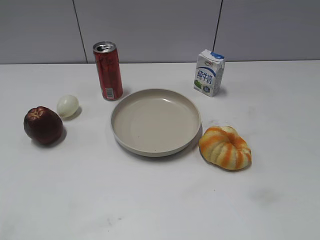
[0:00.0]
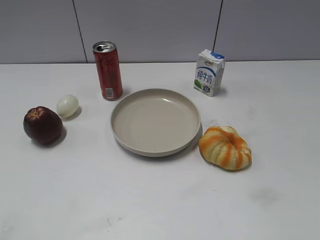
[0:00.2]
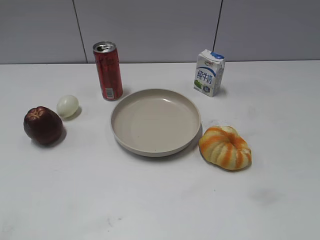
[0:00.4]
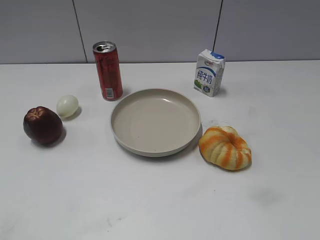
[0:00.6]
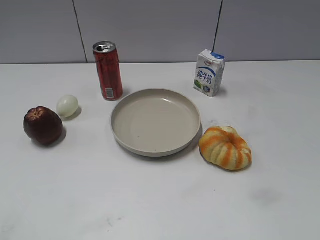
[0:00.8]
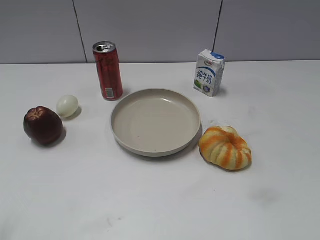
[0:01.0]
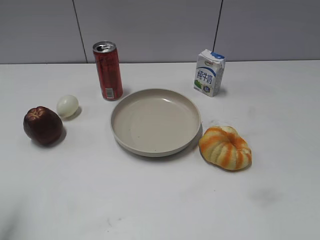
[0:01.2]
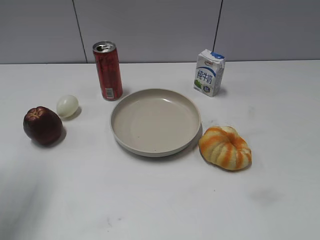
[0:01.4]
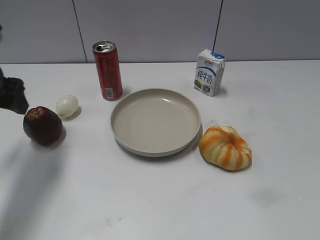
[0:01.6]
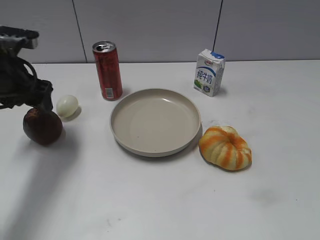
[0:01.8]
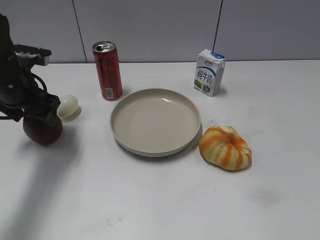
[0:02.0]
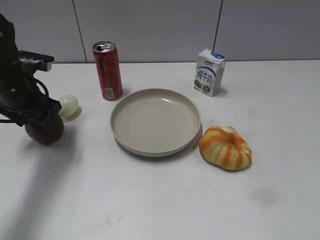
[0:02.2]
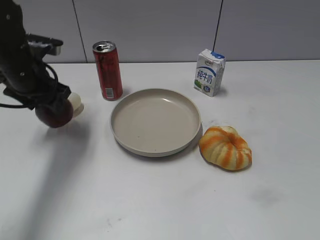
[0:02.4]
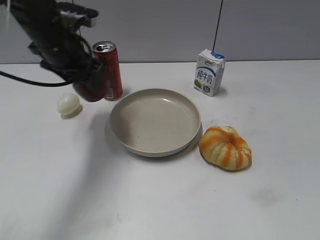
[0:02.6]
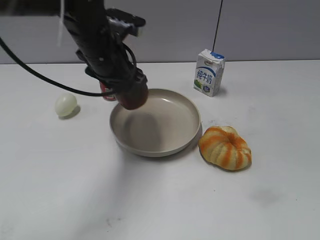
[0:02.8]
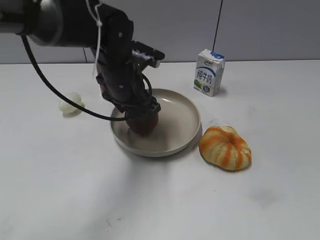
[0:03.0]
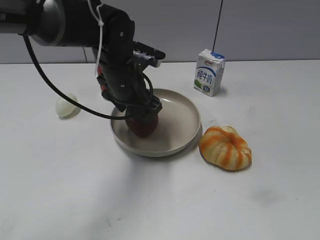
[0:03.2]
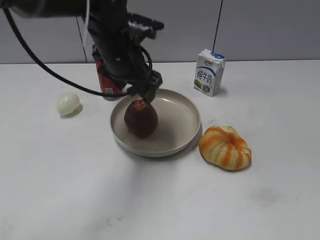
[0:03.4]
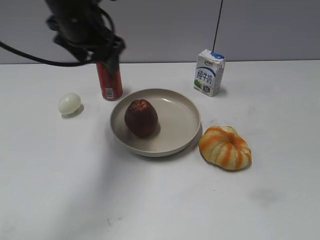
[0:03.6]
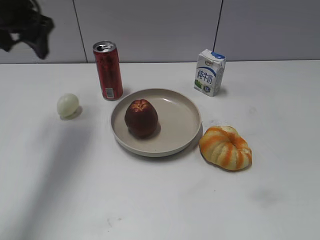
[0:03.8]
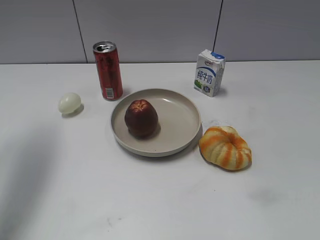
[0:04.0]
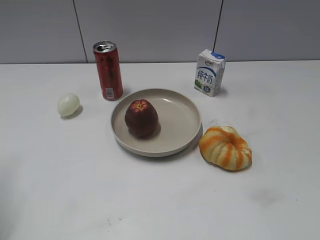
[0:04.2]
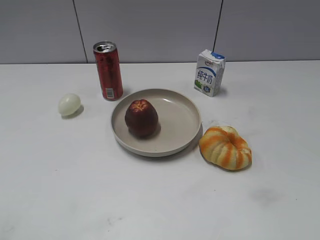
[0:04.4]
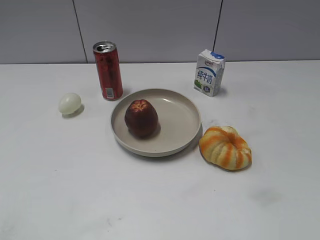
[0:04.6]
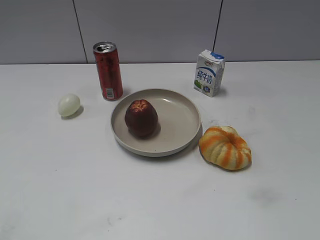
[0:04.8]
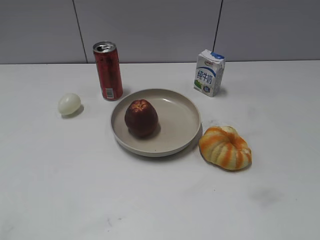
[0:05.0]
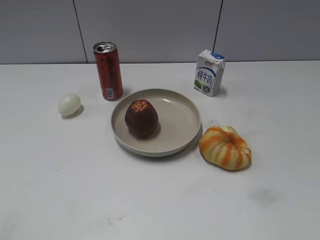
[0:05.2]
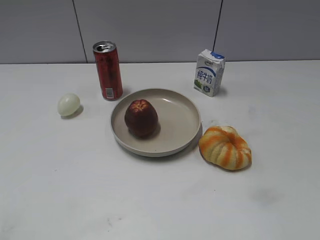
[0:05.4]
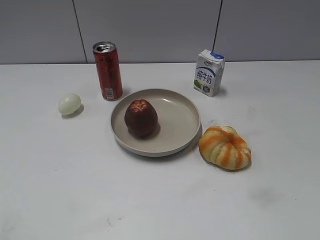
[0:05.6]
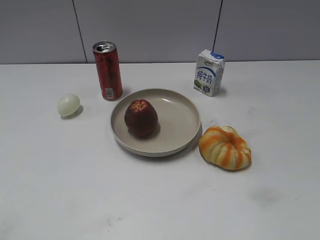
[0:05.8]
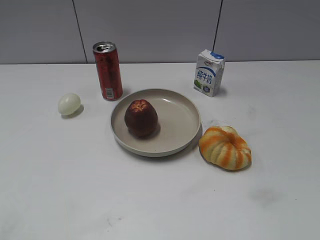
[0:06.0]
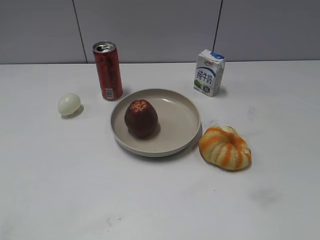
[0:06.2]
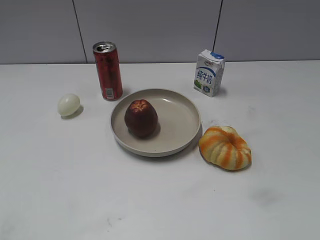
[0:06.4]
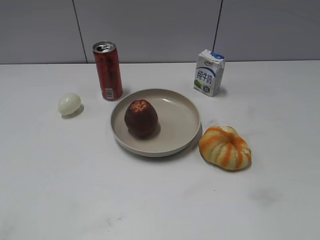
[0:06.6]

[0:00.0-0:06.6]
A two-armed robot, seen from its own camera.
Step, 0:01.6 to 0:02.0: Grasp the apple with left gripper.
Step, 0:02.4 to 0:03.4: Place the apple on the plate with left gripper.
0:01.6 to 0:03.2: The left gripper heads to the right, covering approximately 20 cm, and closes its fingers.
0:03.2 to 0:05.0: The left gripper shifts some 40 cm backward and to the left.

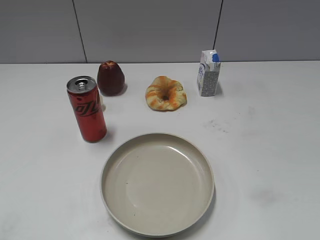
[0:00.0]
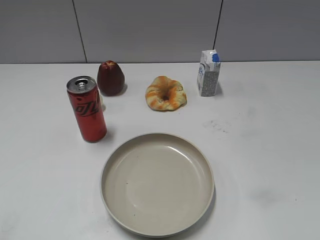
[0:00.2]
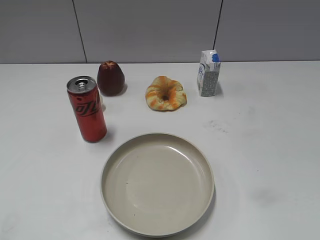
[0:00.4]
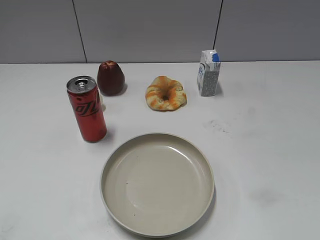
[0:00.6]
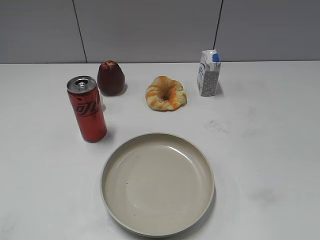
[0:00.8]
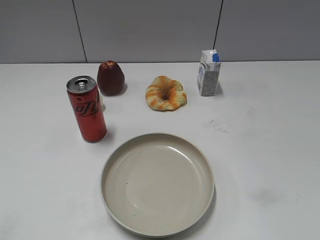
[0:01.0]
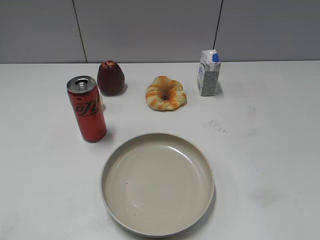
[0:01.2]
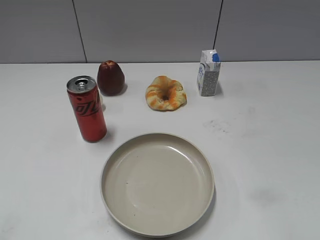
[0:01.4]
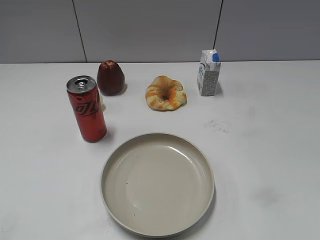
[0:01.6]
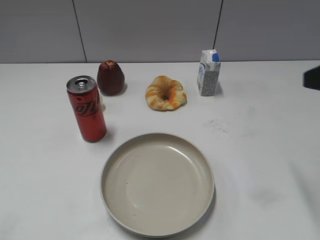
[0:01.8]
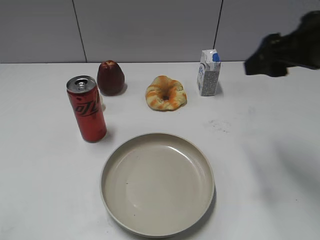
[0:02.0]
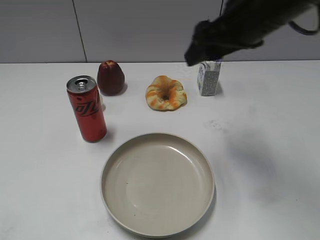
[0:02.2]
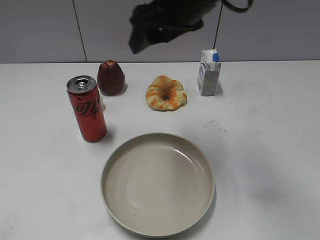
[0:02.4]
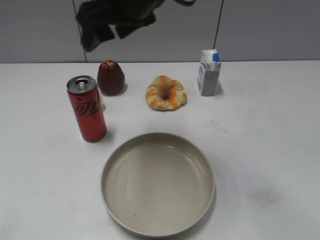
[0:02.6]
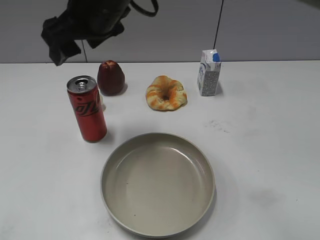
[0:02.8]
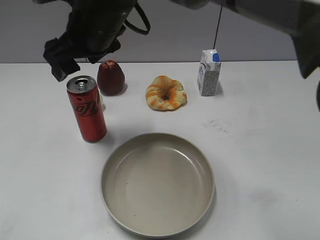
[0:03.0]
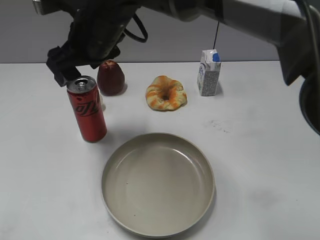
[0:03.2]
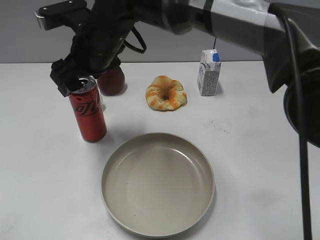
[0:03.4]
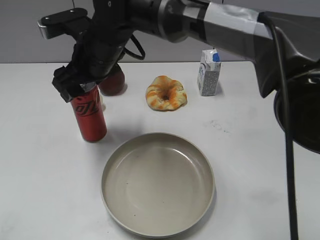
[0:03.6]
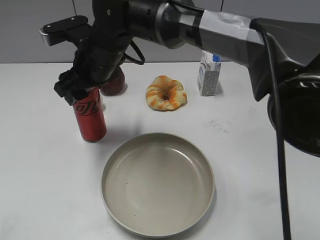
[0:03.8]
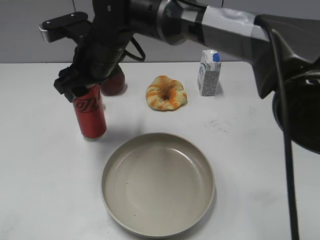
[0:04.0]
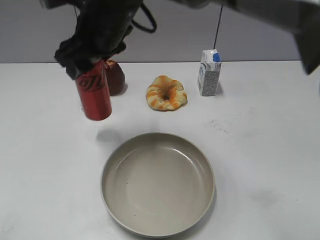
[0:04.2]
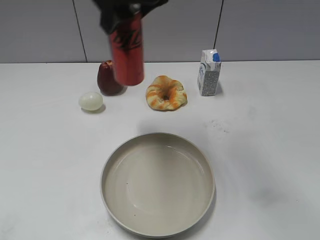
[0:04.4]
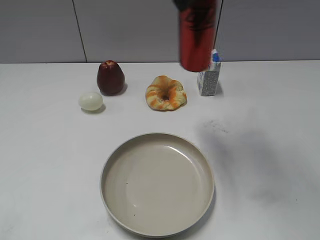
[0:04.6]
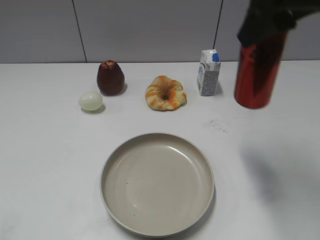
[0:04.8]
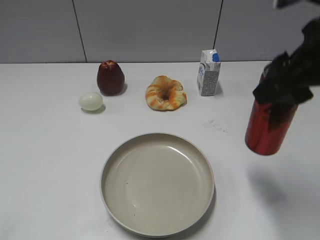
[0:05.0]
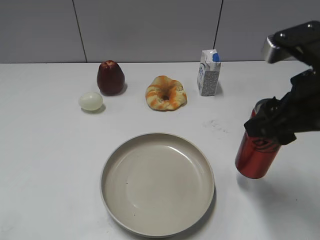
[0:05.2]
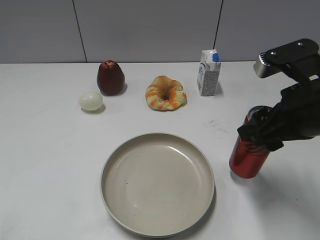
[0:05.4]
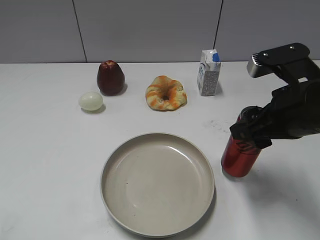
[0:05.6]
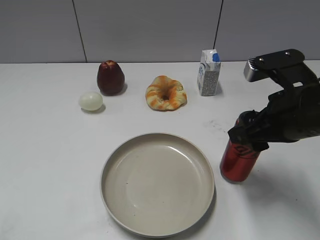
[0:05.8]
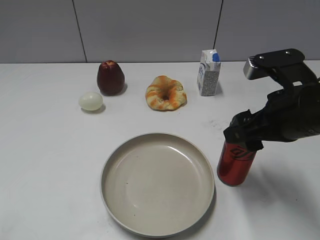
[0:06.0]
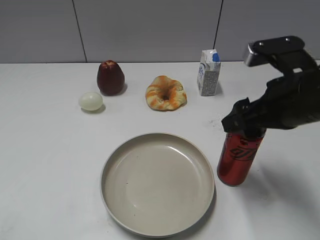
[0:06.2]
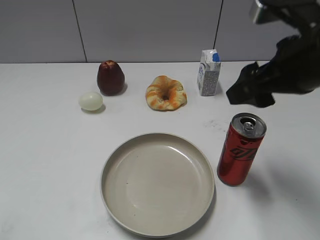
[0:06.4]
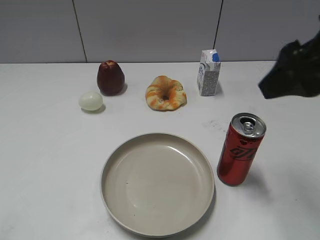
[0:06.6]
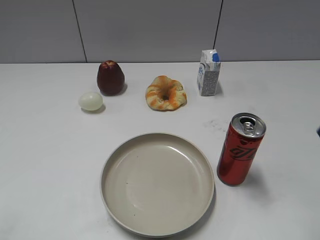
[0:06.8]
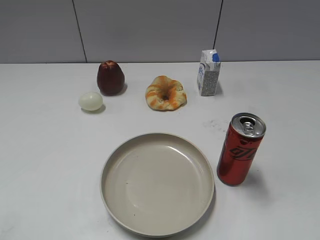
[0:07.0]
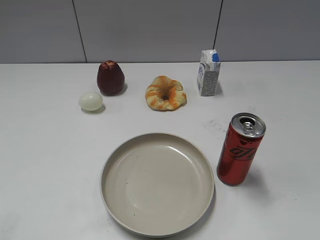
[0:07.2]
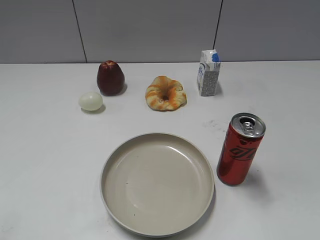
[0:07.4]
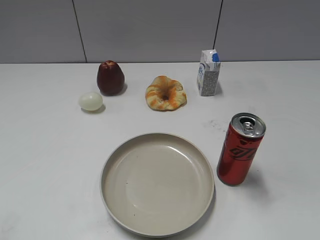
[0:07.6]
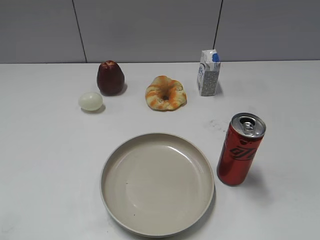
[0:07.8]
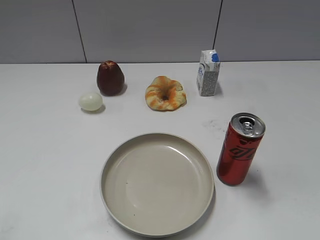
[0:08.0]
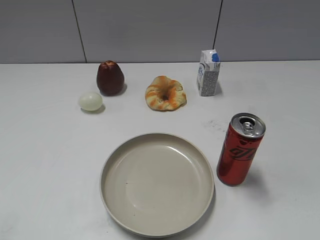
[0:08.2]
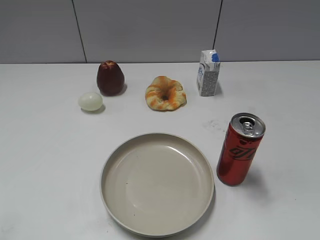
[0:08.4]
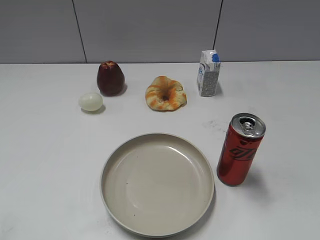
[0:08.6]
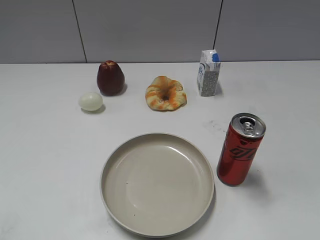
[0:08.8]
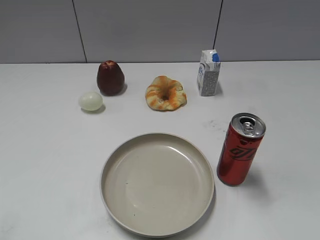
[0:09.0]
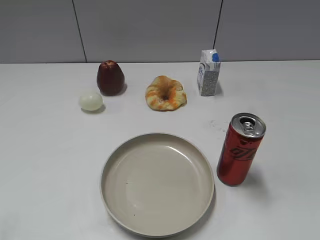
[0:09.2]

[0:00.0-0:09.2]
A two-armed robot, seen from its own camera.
Step, 0:01.0 to 0:03.8: Grasp the cola with right gripper.
Step, 0:04.0 to 0:06.4: Place the cola on the table with right gripper.
0:01.6 to 0:03.0: The right gripper goes about 40 cm to the left and forward, and opens its fingers.
0:03.0 to 0:04.6: The right gripper heads to the right and upward, covering about 20 cm, and closes up.
0:04.6 to 0:06.2: The right gripper heads downward, to the right and backward, covering some 25 cm, and opens up.
0:06.2 to 0:07.6: The right gripper is displaced backward and to the right by roughly 25 cm.

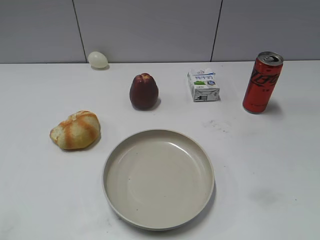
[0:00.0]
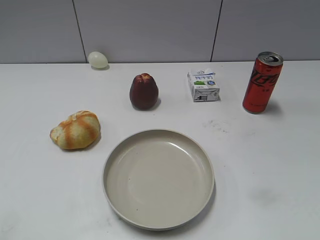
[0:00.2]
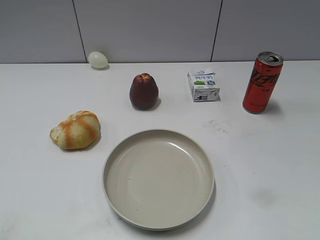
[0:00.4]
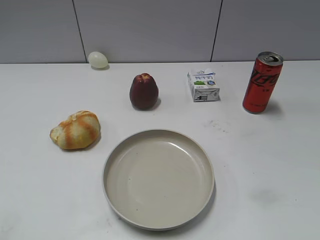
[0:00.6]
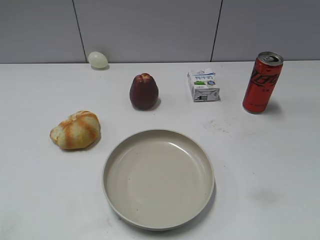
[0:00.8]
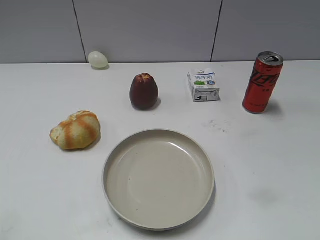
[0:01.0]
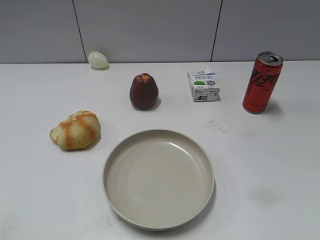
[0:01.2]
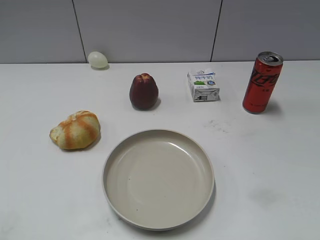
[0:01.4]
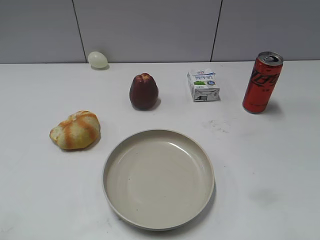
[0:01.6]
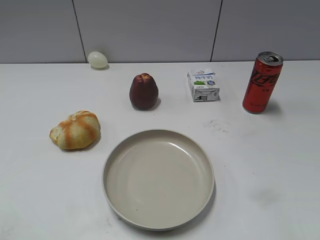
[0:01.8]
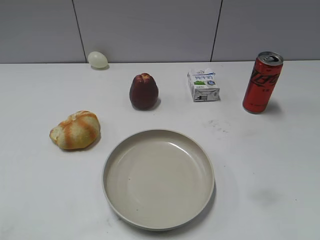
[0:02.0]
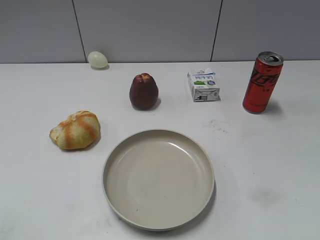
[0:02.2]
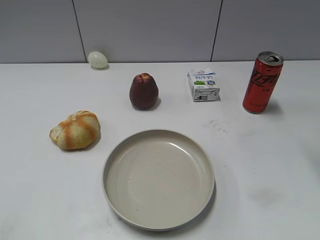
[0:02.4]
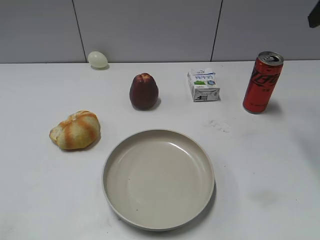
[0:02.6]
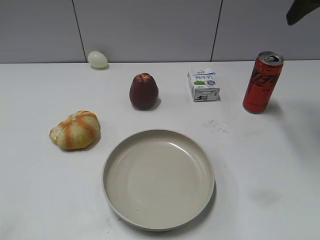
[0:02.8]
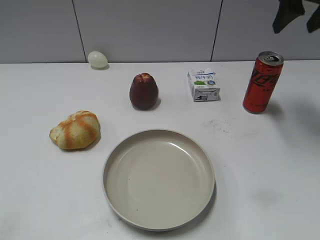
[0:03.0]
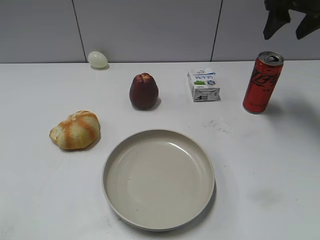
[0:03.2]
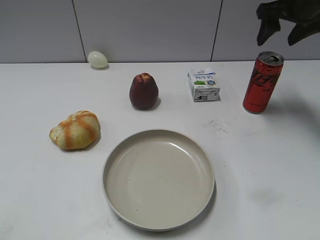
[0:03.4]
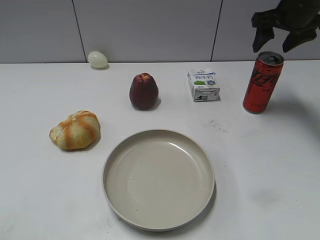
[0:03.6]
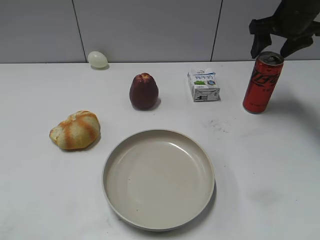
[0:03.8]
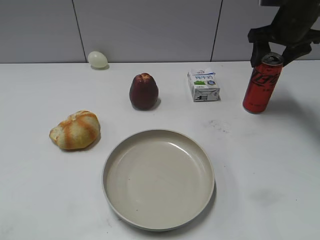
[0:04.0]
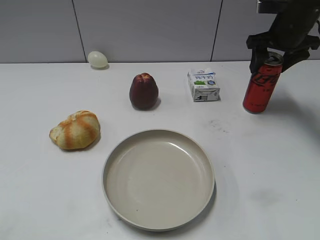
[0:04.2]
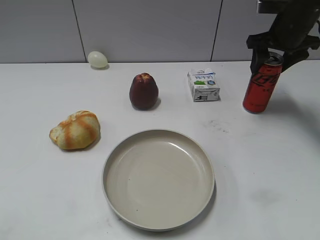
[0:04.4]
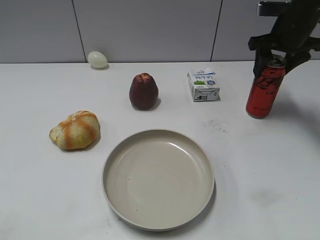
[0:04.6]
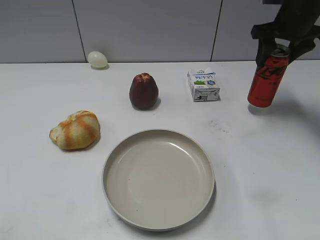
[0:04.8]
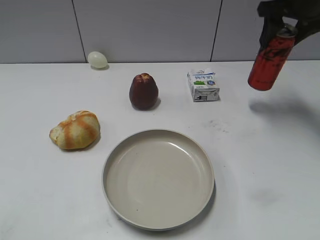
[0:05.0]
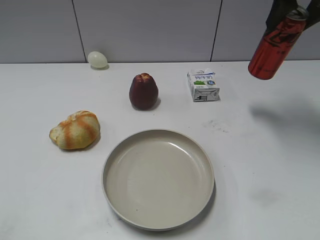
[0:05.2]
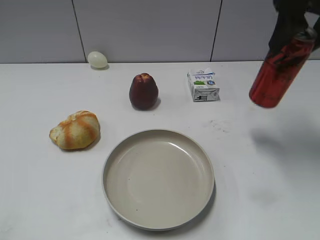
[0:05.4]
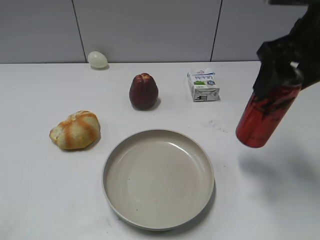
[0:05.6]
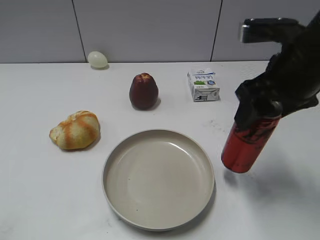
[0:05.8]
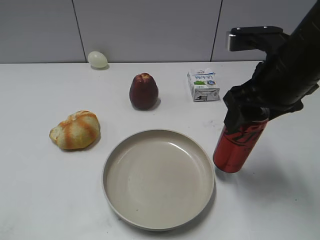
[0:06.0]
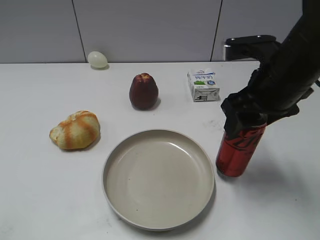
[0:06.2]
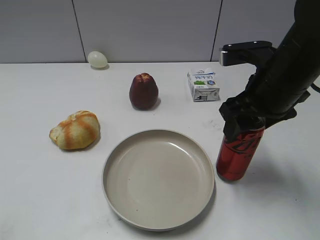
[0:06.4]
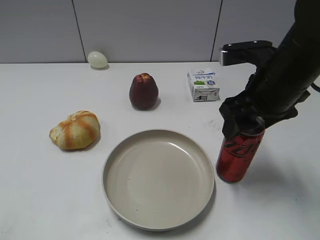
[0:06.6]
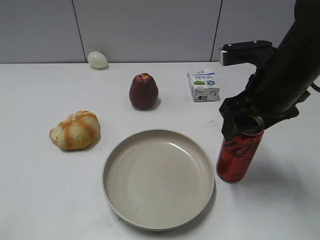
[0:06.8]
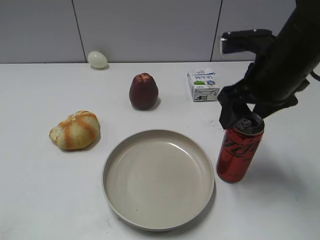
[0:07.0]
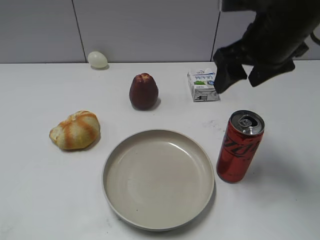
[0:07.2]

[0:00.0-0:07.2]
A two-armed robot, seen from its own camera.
Step, 0:00.8 to 0:04.4: Grasp the cola with right gripper.
Step, 0:04.6 to 0:07.0: Place the cola on the table with right gripper.
0:01.4 to 0:02.8: The right gripper travels forward by some 30 cm.
0:02.8 to 0:04.4: The right gripper travels downward and forward by roughly 15 cm.
0:04.4 to 0:05.8: The right gripper goes approximately 20 cm backward.
0:05.8 to 0:07.2: The right gripper shifts by about 5 cm, and opens.
